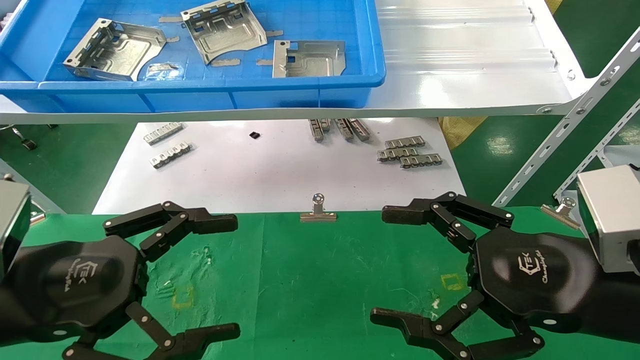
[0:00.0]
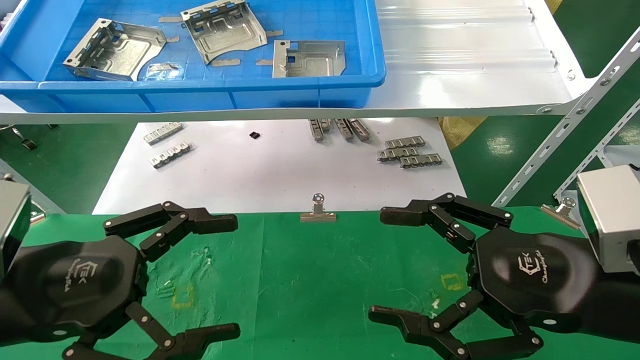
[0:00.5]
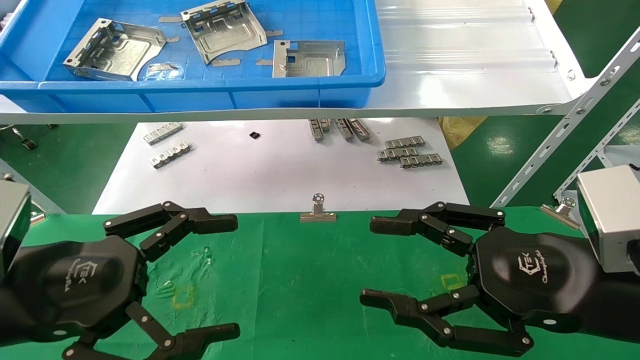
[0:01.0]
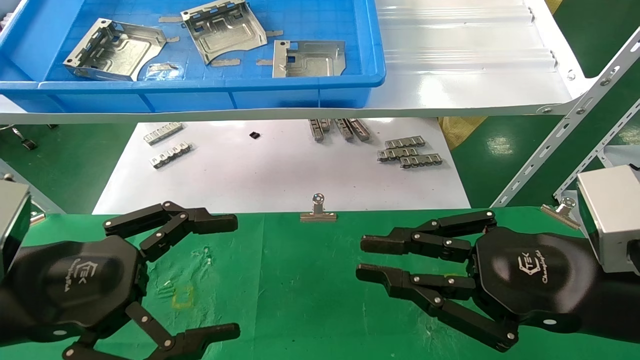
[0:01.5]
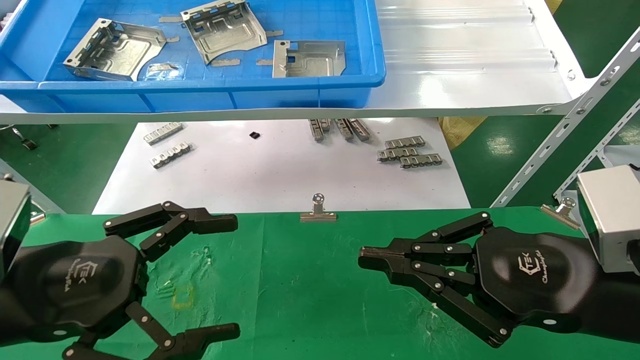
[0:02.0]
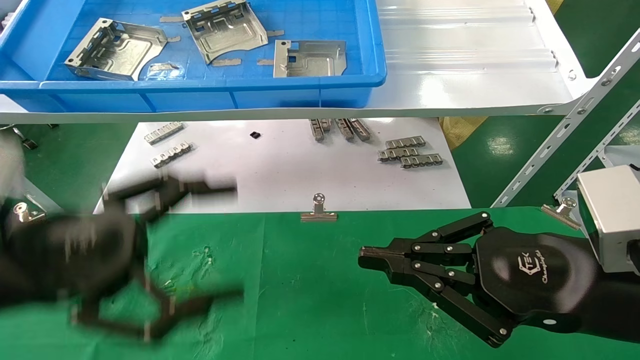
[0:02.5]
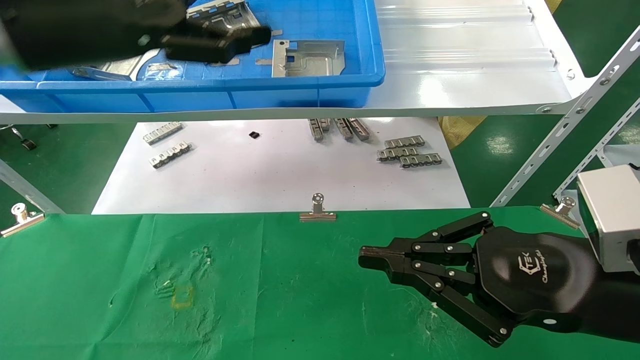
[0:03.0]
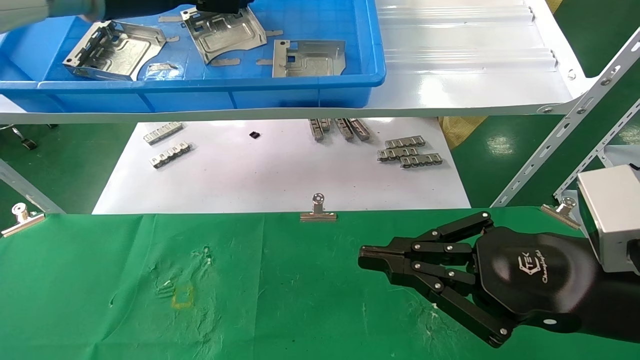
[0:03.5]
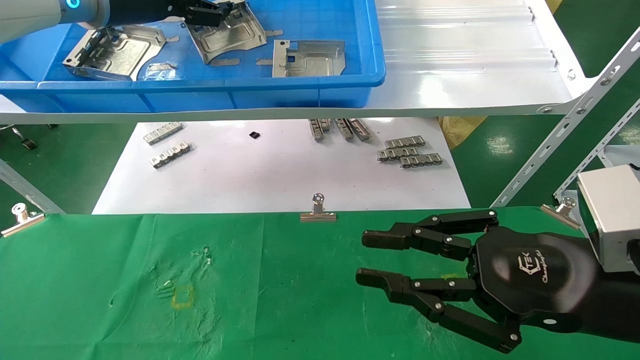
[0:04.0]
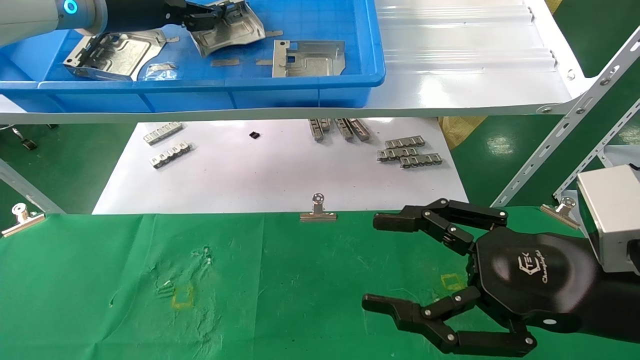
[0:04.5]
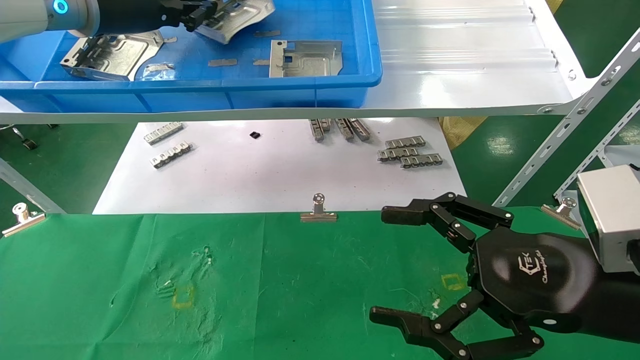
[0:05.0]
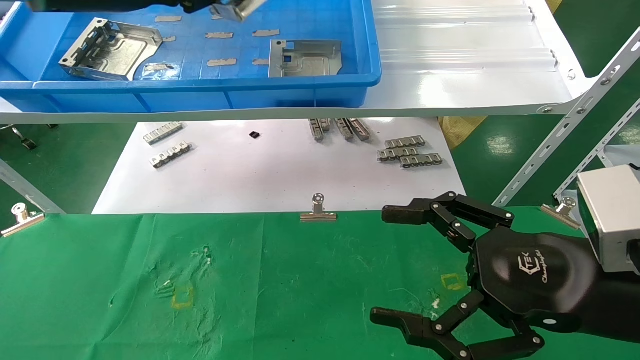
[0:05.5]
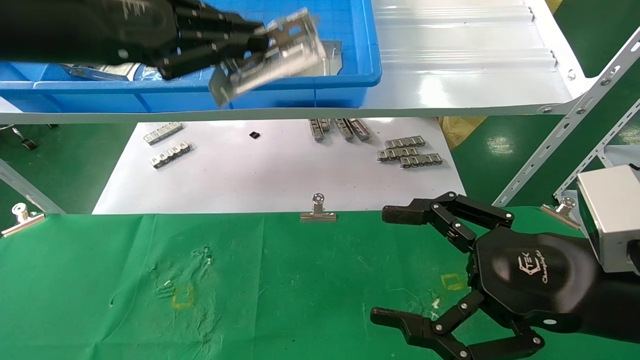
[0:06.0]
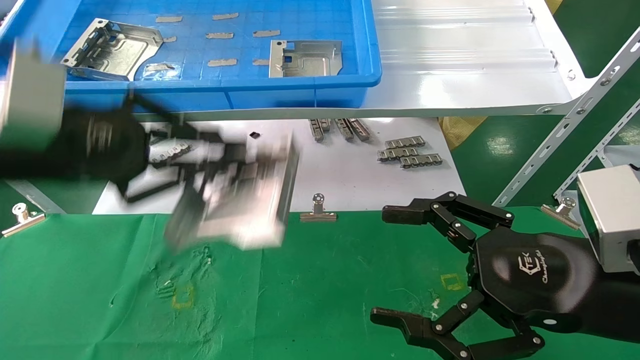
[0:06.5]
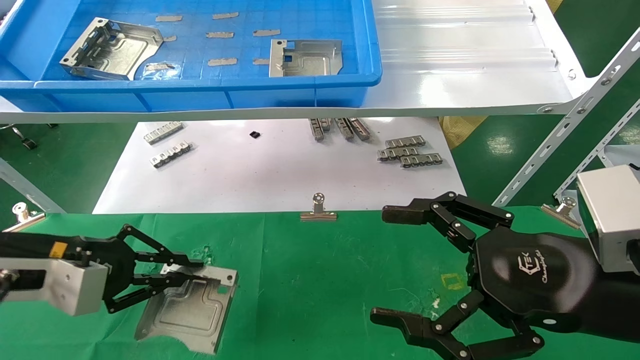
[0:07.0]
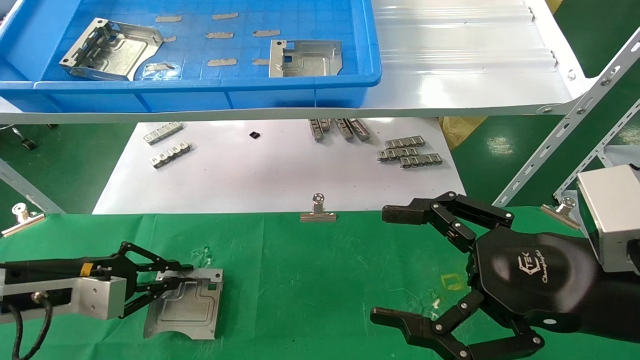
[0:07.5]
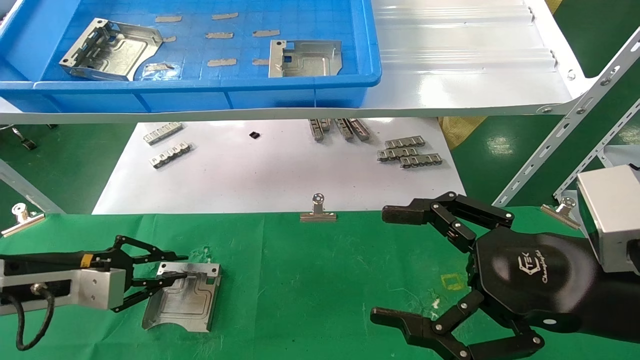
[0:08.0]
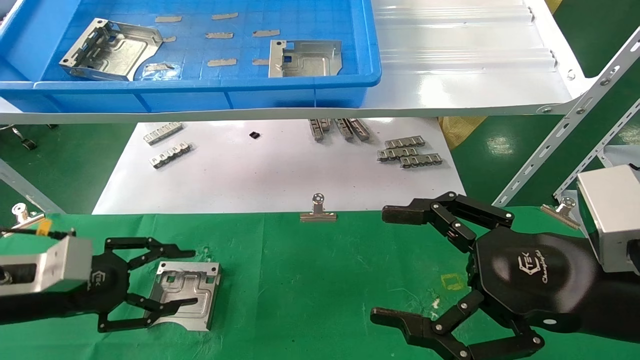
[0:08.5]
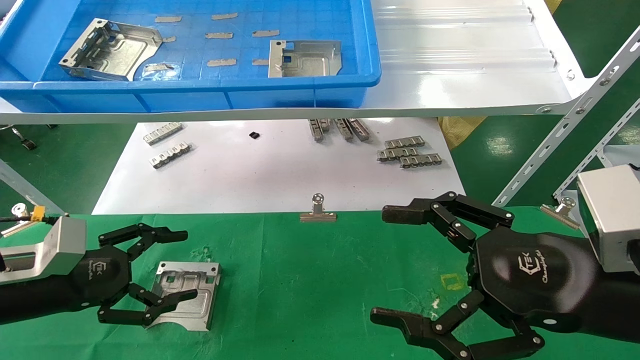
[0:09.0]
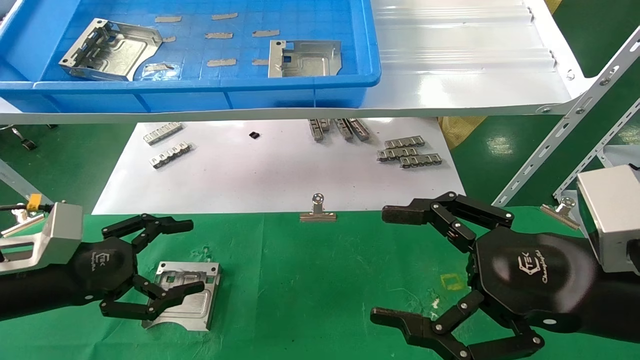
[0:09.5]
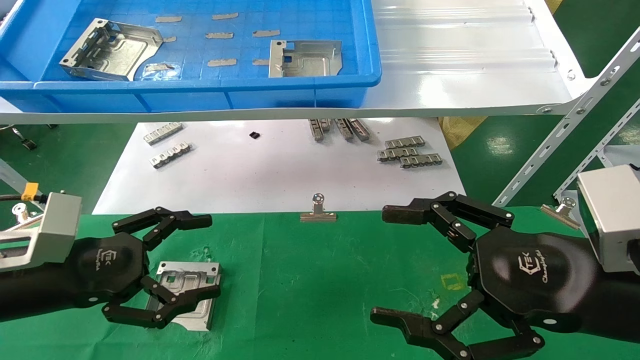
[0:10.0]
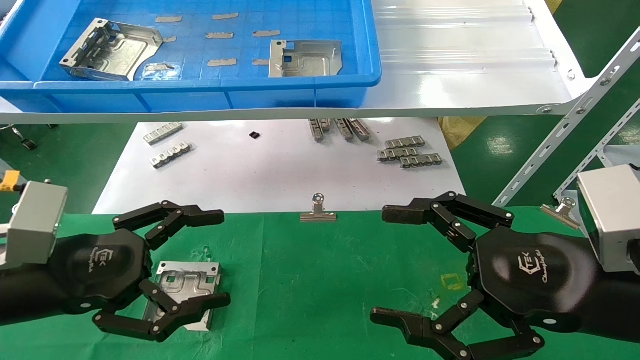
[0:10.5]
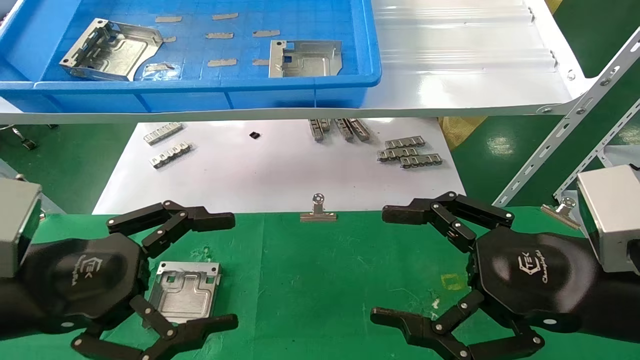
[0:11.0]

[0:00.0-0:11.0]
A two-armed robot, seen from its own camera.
Task of the whole recording: use the mechanical arm to pick up the parts and place them on the table.
Step, 0:02.5 to 0:05.0: Pick up the hard drive bracket from the feeding area.
Step, 0:05.5 to 0:08.0: Place the hard drive bracket into the box.
0:00.0 to 0:02.0: The right gripper closes.
0:02.0 to 0:03.5: The left gripper moves upward and forward, about 35 cm.
0:03.5 to 0:05.5: The left gripper moves backward, approximately 5 cm, and closes up. The right gripper opens up.
0:05.5 to 0:07.5: The left gripper goes roughly 35 cm downward.
0:07.5 to 0:09.0: The left gripper opens.
0:09.0 to 0:11.0: The left gripper travels backward, to the right and upward by about 15 cm.
